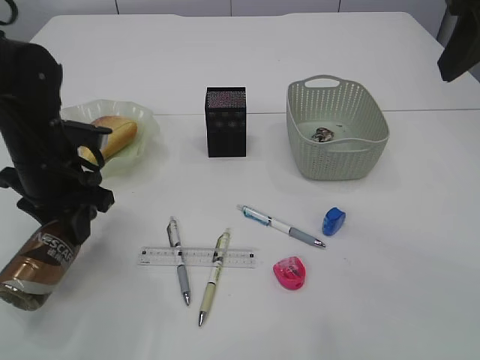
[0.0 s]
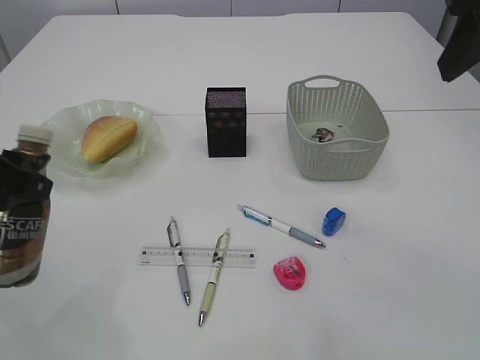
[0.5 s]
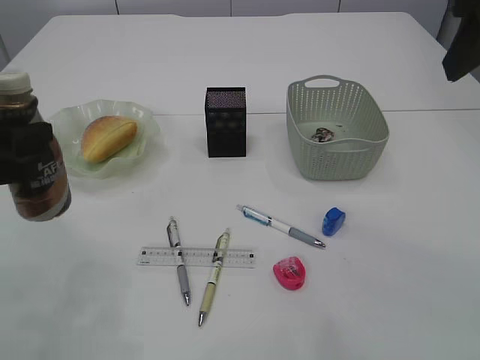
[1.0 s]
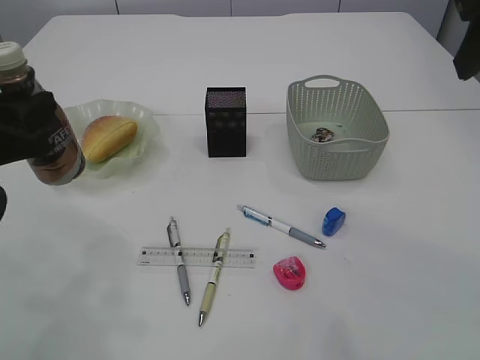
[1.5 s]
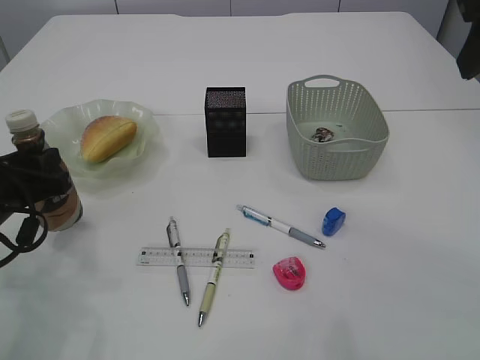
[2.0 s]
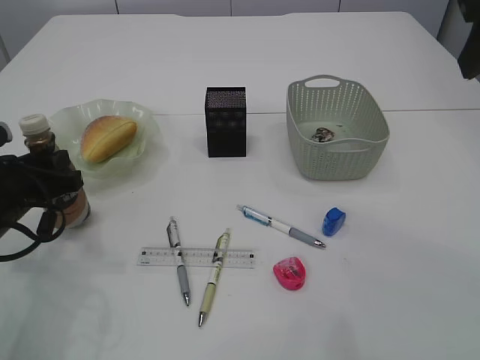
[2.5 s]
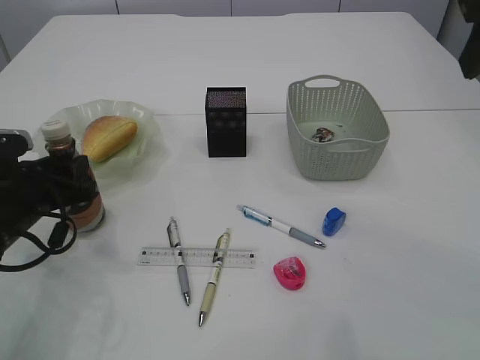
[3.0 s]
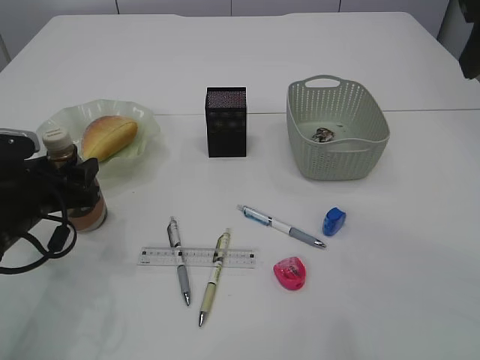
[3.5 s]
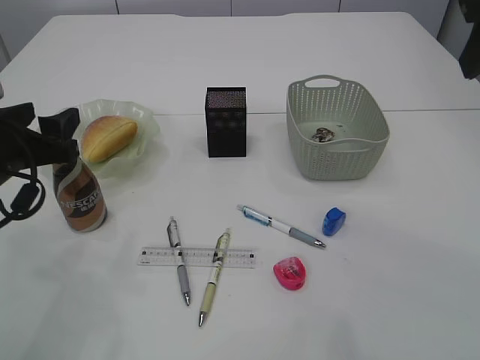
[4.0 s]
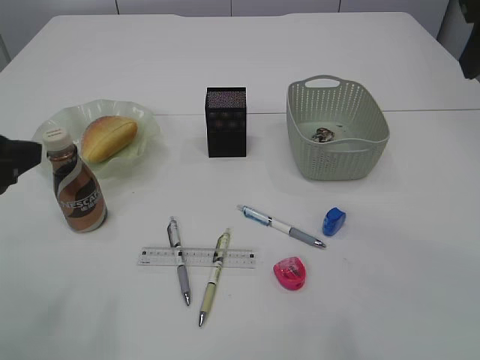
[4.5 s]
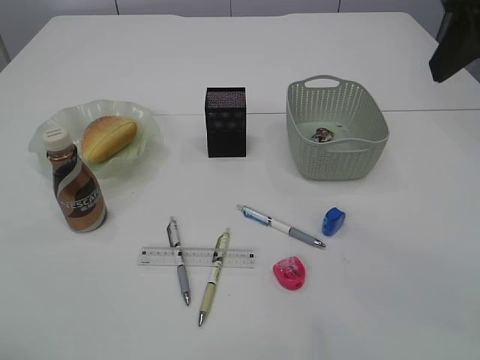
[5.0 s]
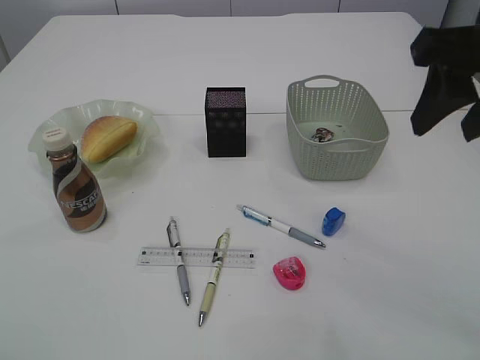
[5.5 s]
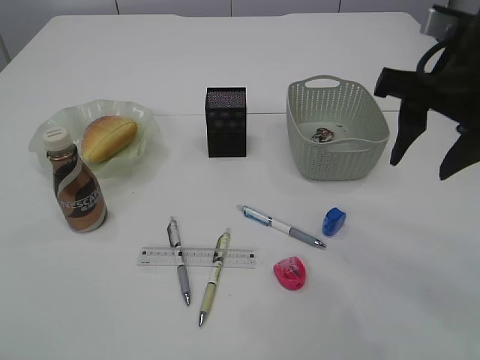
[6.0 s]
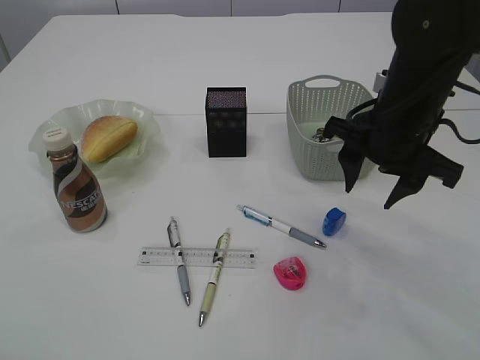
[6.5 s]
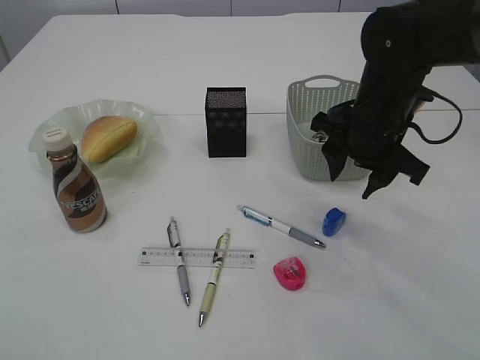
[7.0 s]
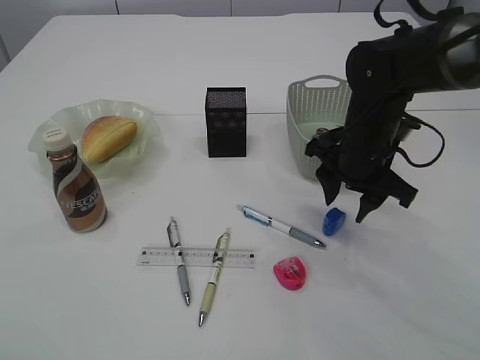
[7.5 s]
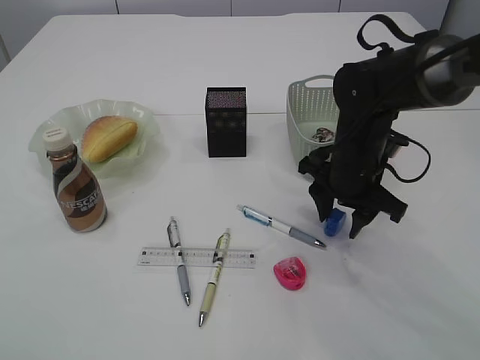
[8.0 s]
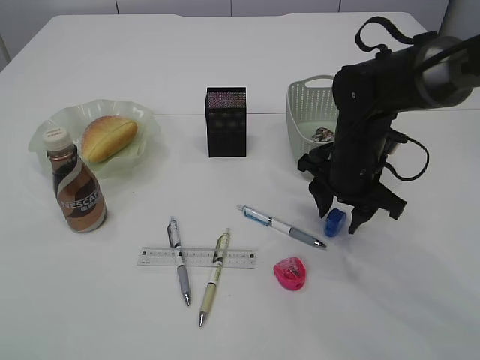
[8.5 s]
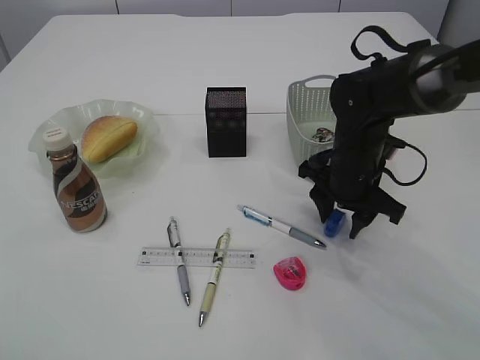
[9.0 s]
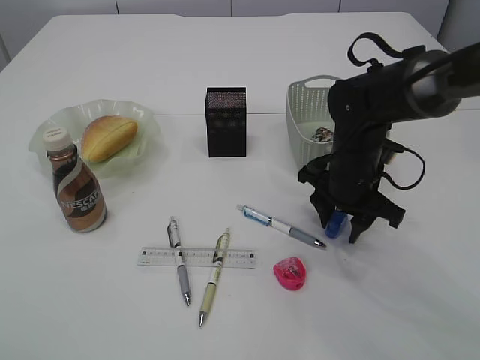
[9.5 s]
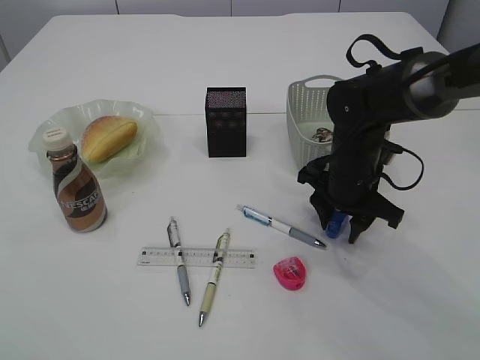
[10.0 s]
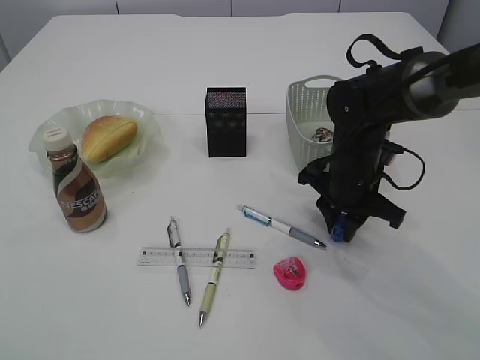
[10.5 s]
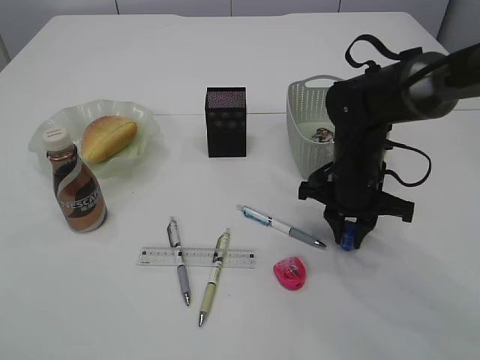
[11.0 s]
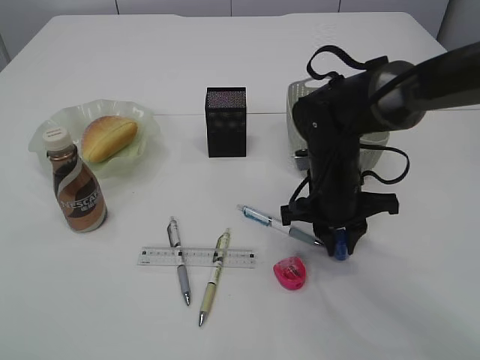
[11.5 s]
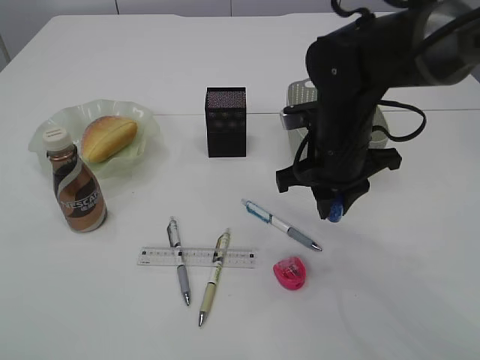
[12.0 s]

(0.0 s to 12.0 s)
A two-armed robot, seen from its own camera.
Step, 0.5 s - 4.0 s: Place the bottle.
0.0 s - 2.0 s: The left gripper is displaced backward and to the left by some 10 cm.
2.0 s - 4.0 s: The left gripper opens its fingers.
4.0 s - 6.0 s: The left gripper travels backward and upward by roughly 20 cm; the right gripper heads downward, covering some 10 cm.
6.0 s - 8.0 s: The right gripper is displaced downward and forward by about 20 cm.
8.0 s - 10.0 s: The grippers move only a little.
10.0 s - 12.0 s: The right gripper heads upward, covering some 5 cm, and closes its fingers.

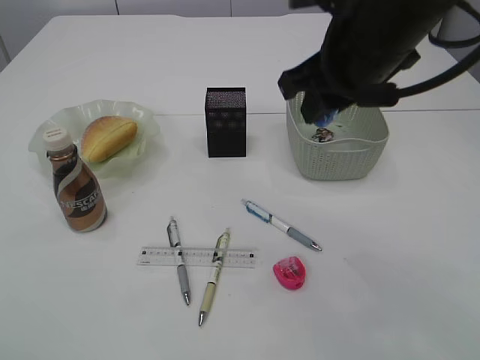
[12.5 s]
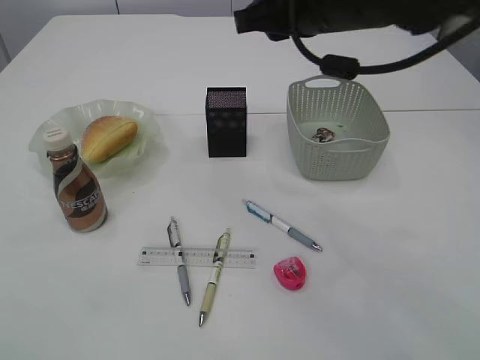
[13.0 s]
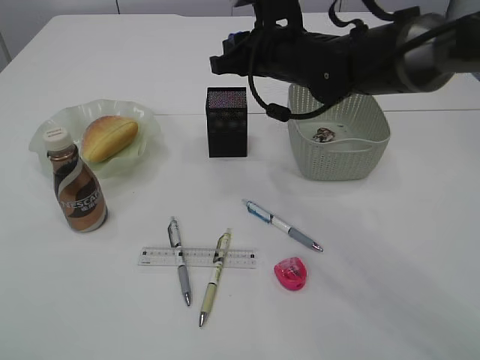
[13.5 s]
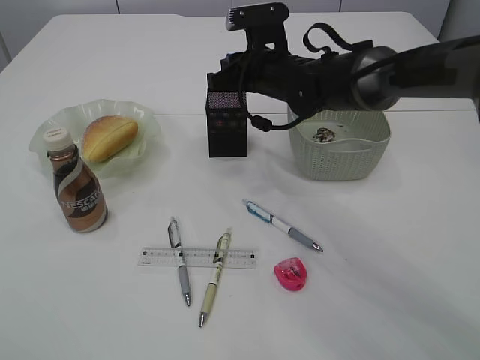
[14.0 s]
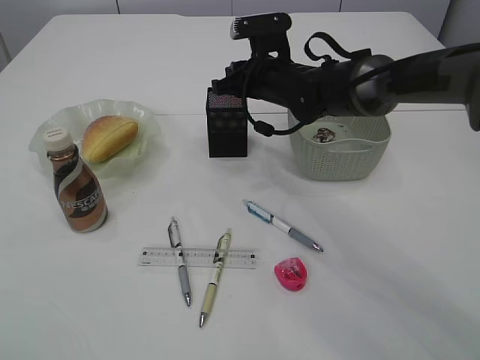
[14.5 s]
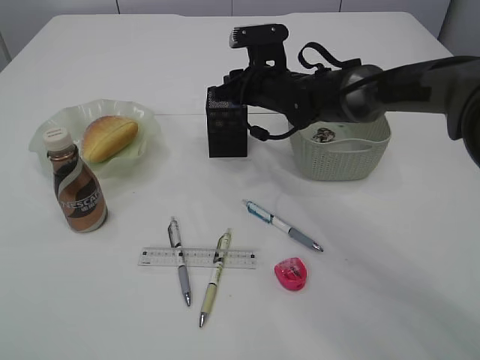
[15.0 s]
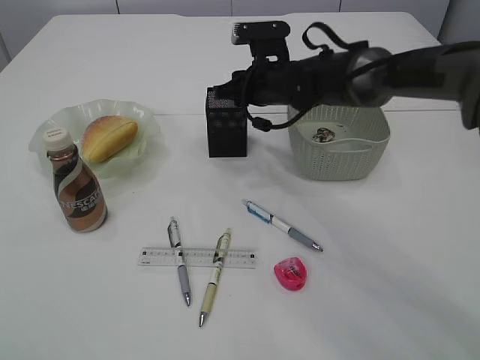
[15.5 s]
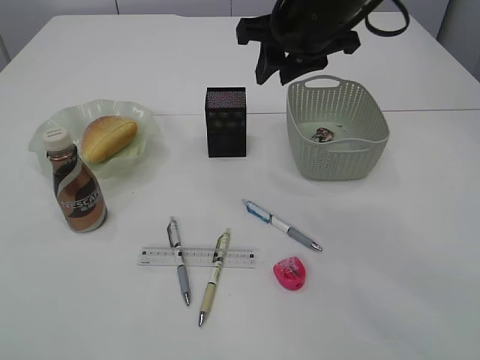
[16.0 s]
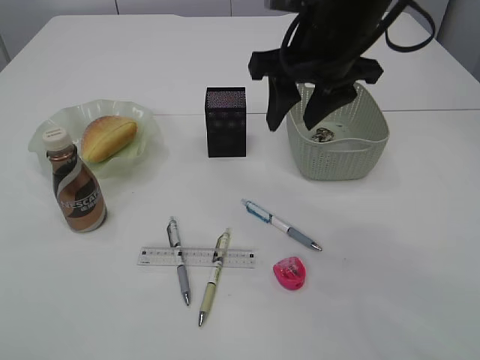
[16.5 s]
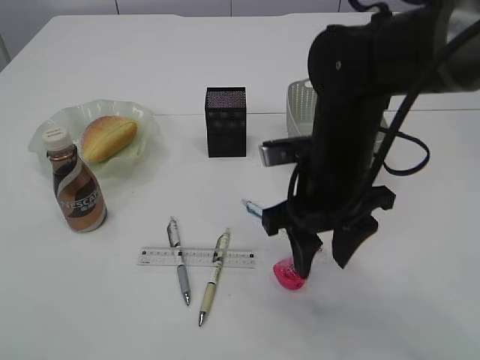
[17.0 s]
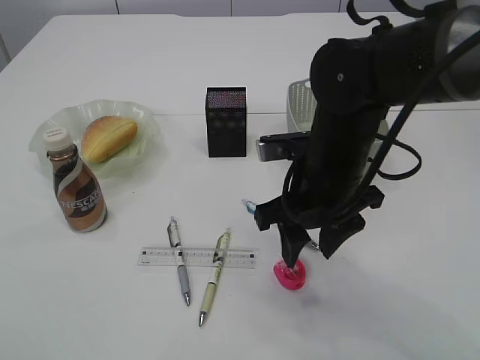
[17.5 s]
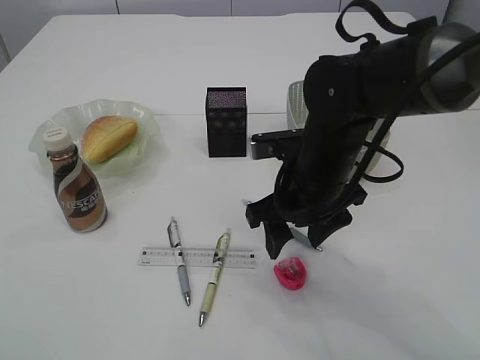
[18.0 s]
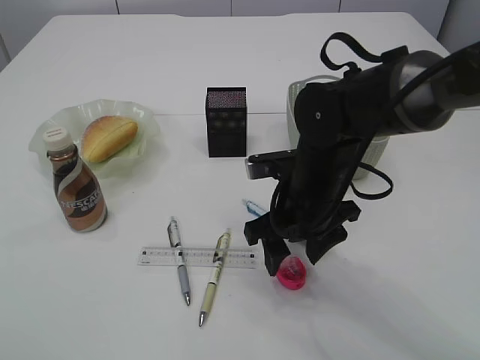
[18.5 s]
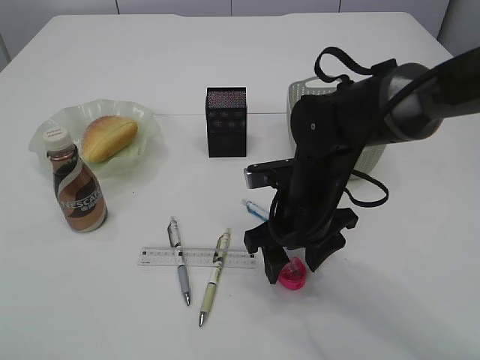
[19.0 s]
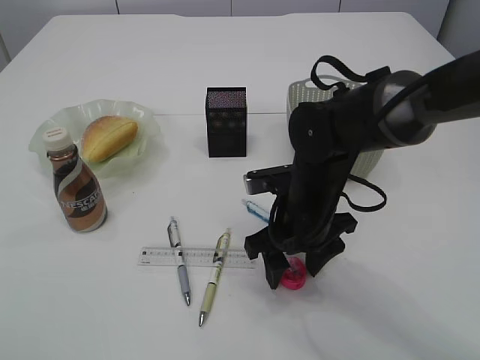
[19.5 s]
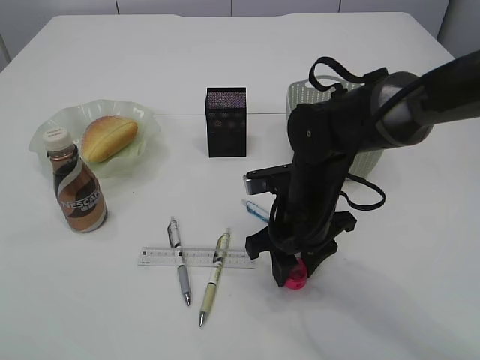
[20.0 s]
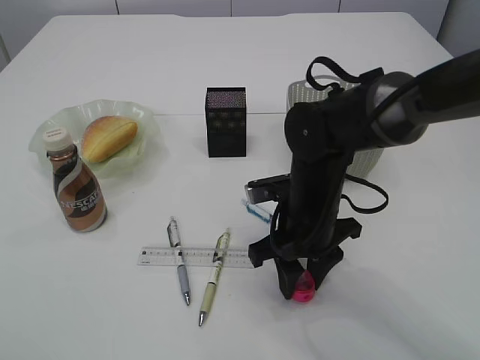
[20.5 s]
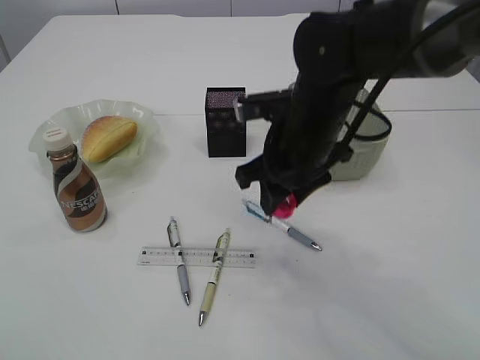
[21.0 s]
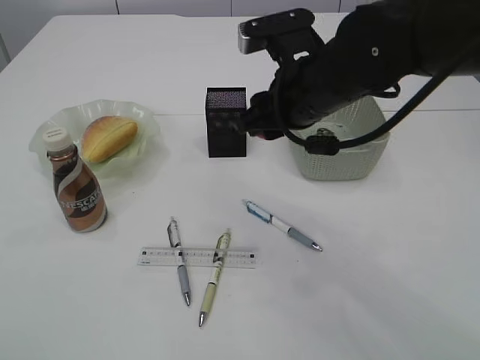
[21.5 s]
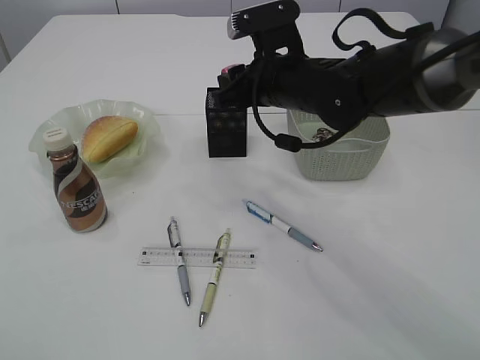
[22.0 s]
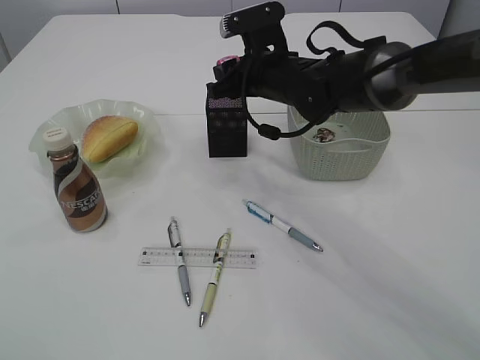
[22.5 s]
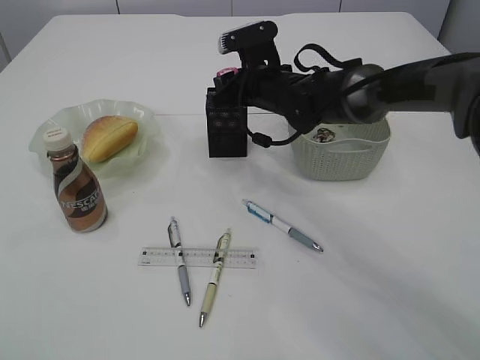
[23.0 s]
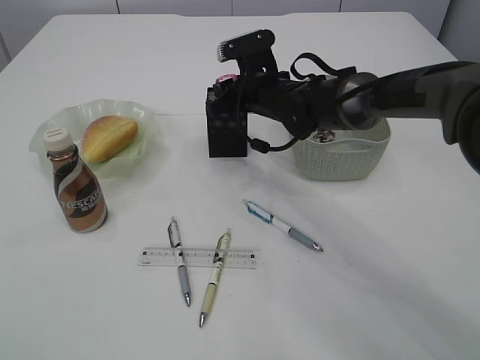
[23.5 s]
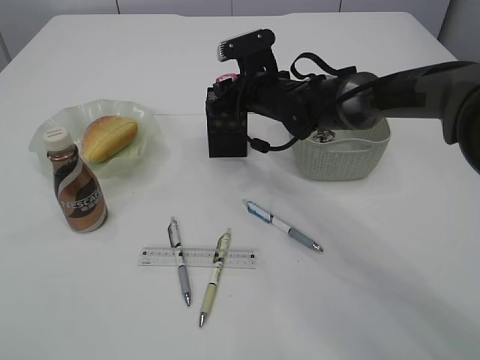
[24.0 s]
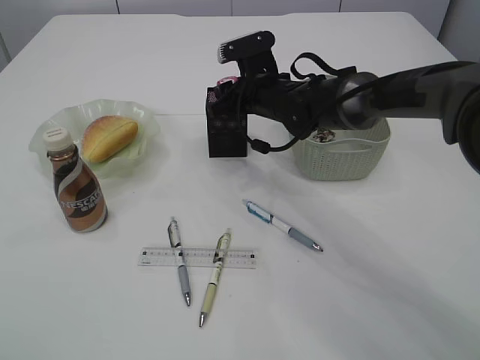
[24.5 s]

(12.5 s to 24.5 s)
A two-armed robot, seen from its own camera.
Step, 12.5 s - 15.5 s: Place the blue pencil sharpener into the pen holder.
Step, 16.0 s - 20.5 s: Pick up the red pencil sharpener.
12.5 s - 14.5 s: The right gripper goes approximately 20 cm forward and downward.
14.5 s - 16.5 s: The right gripper moves upward and backward, roughly 20 cm, and opens its fingers.
16.5 s - 18.5 s: The right gripper heads downward, covering roughly 15 cm.
18.5 s - 20.5 s: The right gripper closes up.
20.5 s - 22.5 s: The right gripper shifts roughly 15 cm forward and upward.
22.5 s - 24.5 s: The right gripper ends up about 5 cm from where it was.

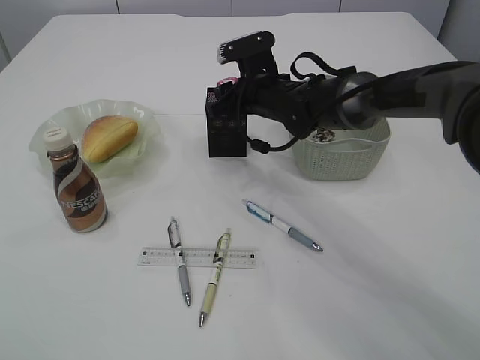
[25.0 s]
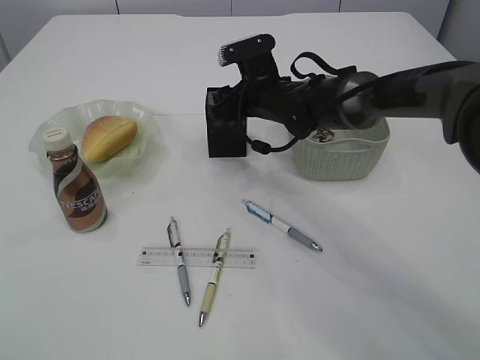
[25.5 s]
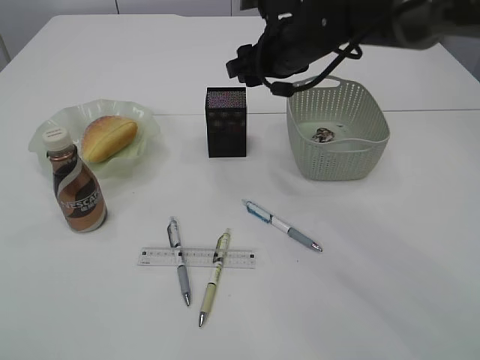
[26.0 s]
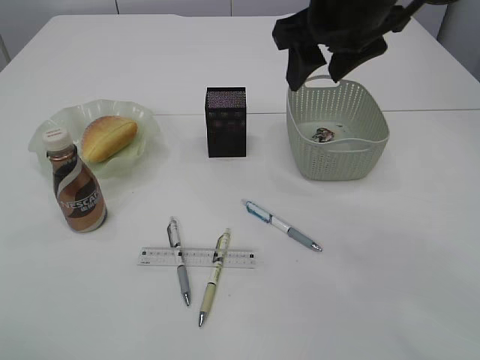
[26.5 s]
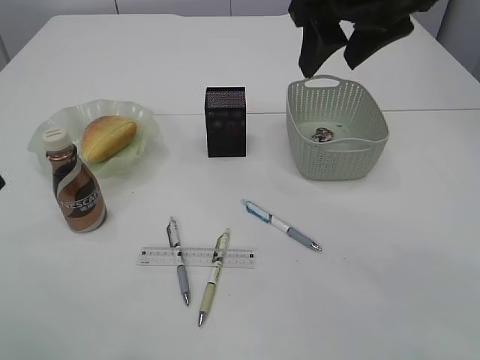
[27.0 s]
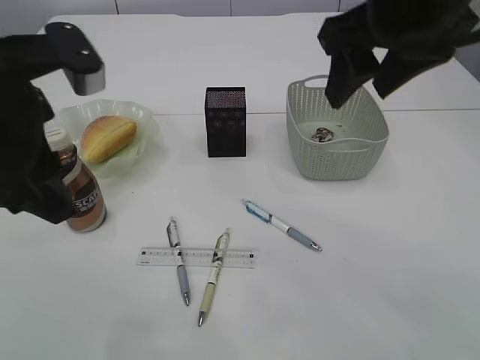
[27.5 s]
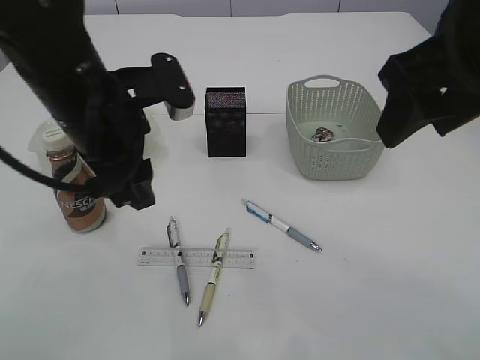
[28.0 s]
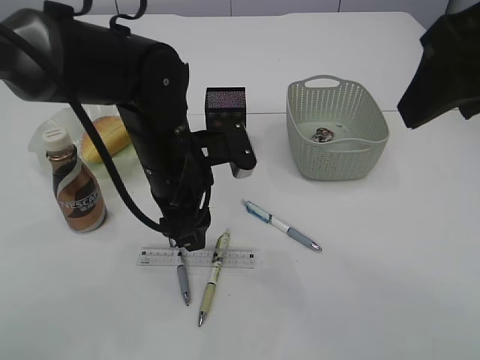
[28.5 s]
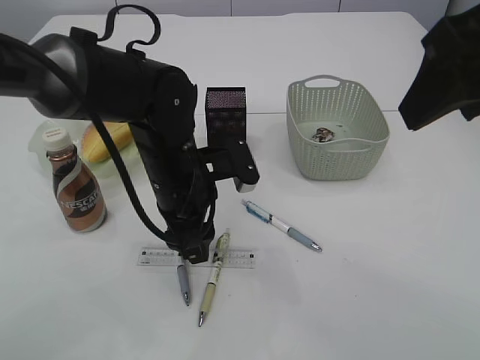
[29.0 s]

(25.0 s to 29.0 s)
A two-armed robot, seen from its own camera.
25.0 s - 27.0 s: The right gripper shifts approximately 25 cm upward and backward; the left gripper goes some 5 cm forward.
27.0 s - 29.0 s: The left gripper goes roughly 30 cm downward, to the right and forward. The right gripper shifts approximately 15 cm backward and to the right.
